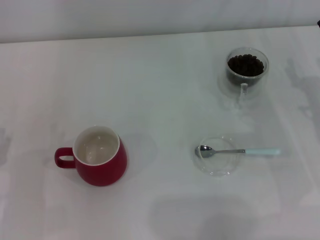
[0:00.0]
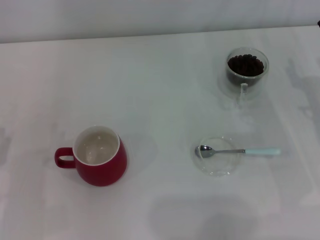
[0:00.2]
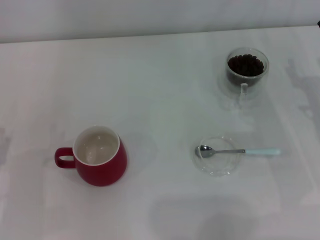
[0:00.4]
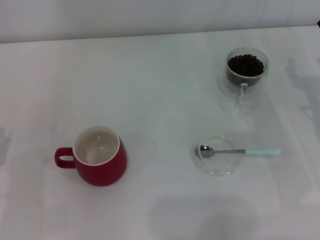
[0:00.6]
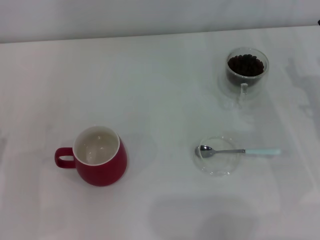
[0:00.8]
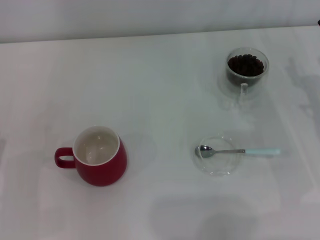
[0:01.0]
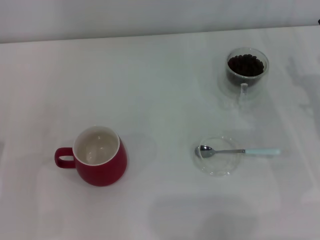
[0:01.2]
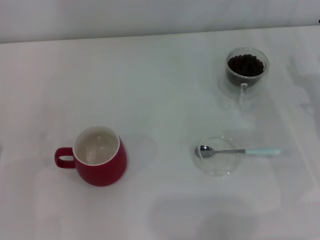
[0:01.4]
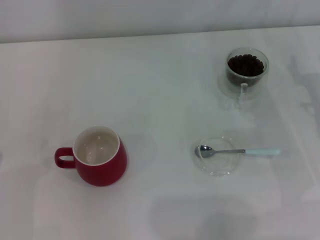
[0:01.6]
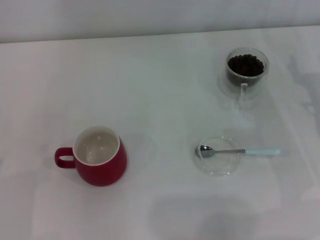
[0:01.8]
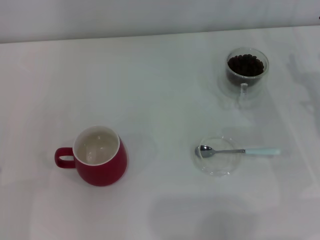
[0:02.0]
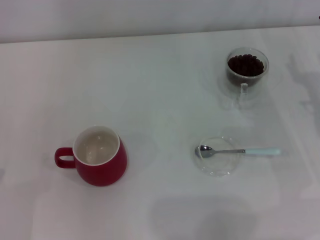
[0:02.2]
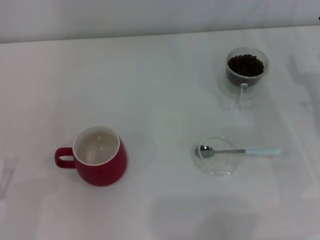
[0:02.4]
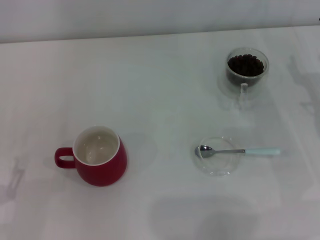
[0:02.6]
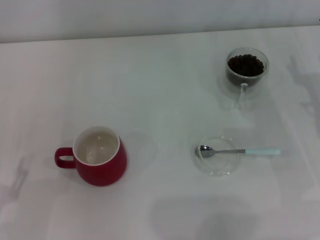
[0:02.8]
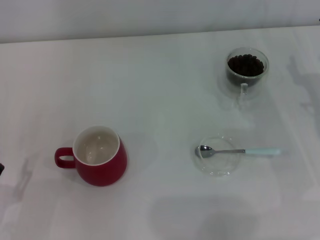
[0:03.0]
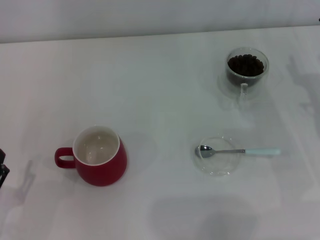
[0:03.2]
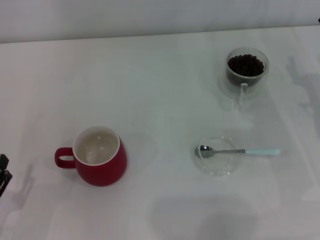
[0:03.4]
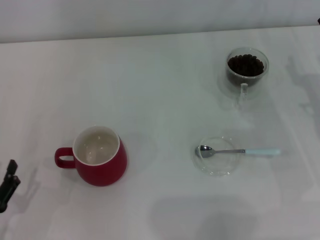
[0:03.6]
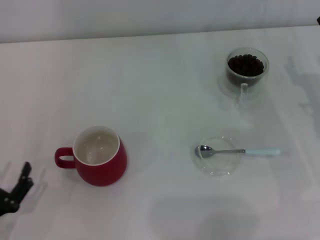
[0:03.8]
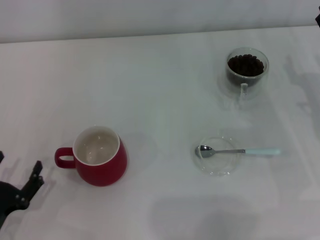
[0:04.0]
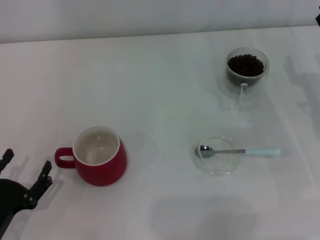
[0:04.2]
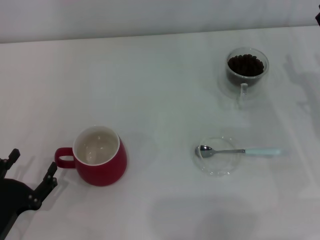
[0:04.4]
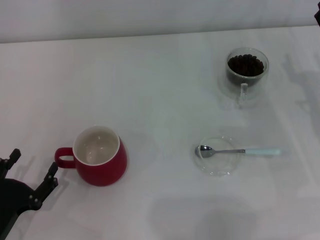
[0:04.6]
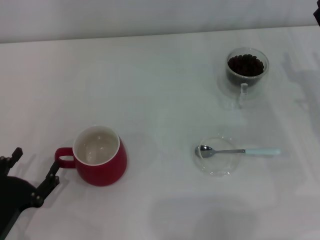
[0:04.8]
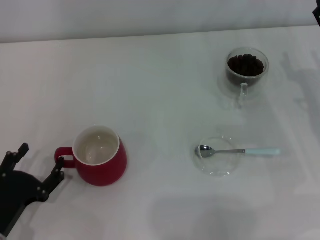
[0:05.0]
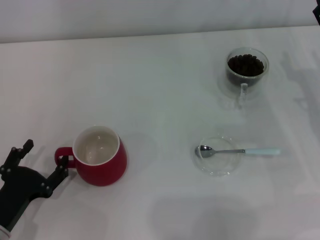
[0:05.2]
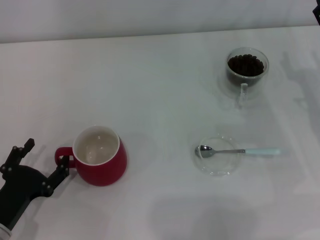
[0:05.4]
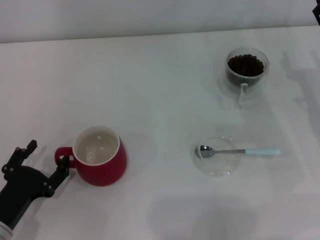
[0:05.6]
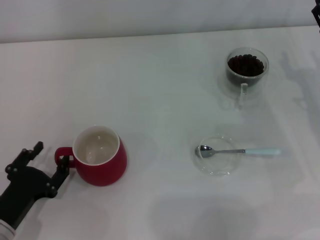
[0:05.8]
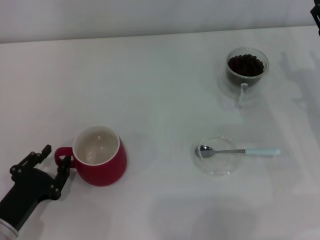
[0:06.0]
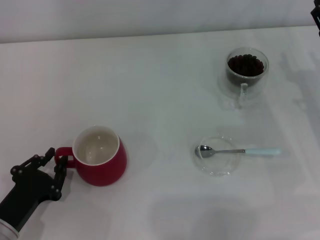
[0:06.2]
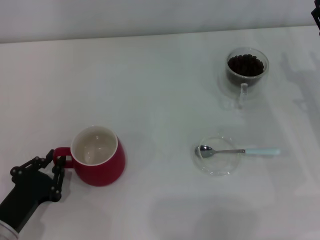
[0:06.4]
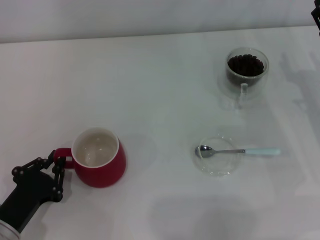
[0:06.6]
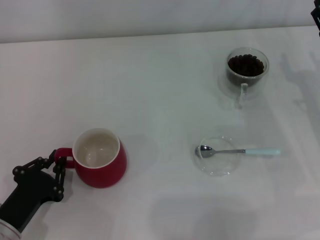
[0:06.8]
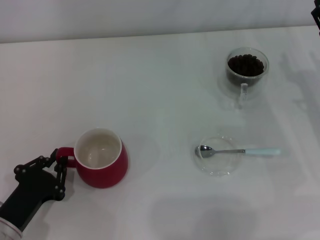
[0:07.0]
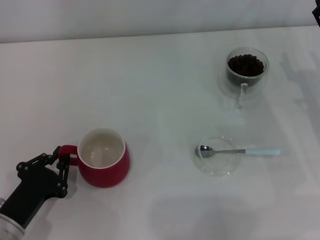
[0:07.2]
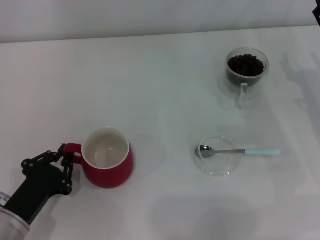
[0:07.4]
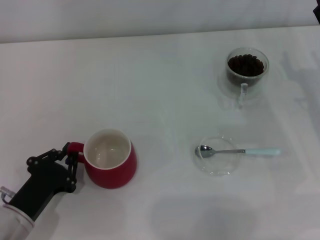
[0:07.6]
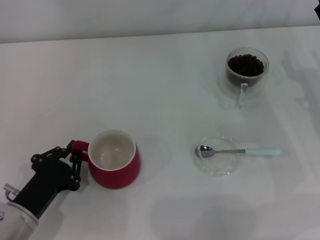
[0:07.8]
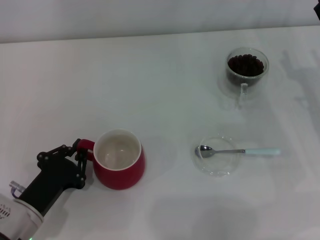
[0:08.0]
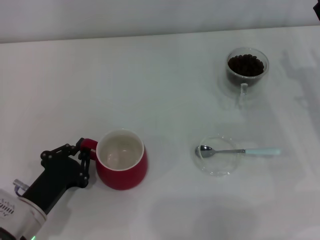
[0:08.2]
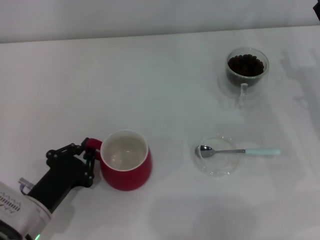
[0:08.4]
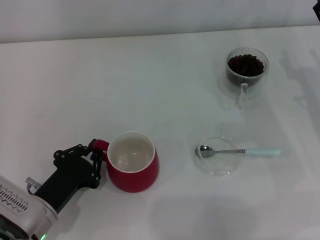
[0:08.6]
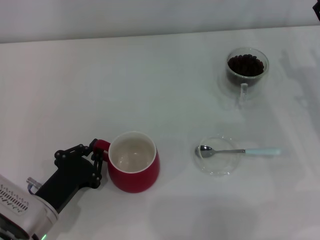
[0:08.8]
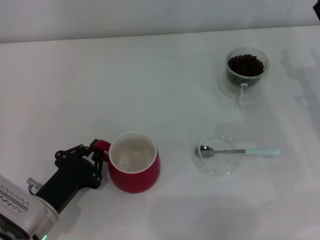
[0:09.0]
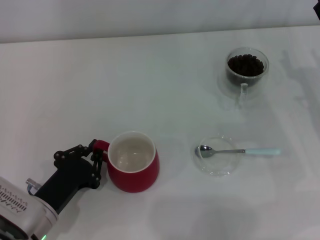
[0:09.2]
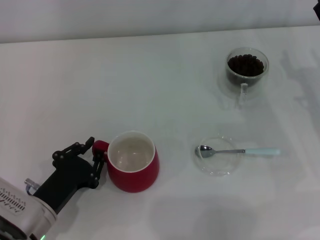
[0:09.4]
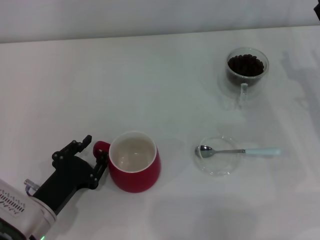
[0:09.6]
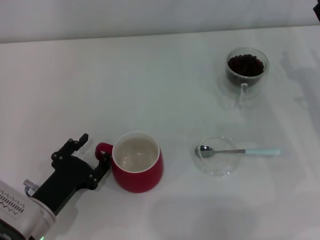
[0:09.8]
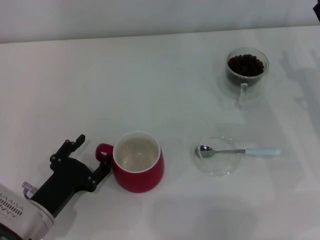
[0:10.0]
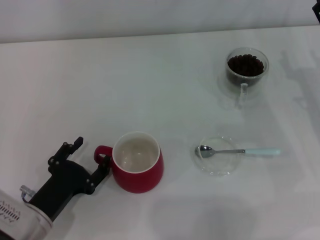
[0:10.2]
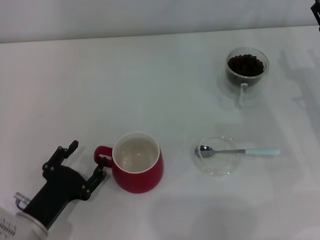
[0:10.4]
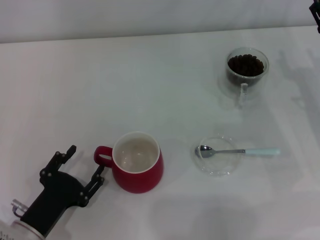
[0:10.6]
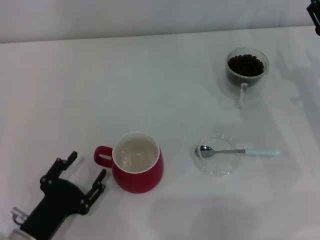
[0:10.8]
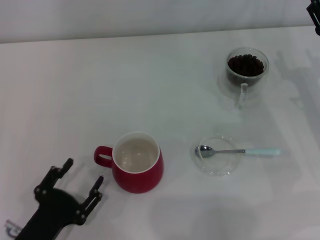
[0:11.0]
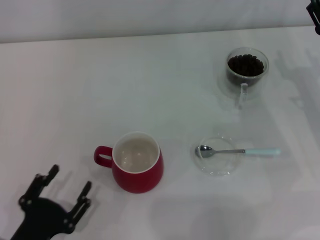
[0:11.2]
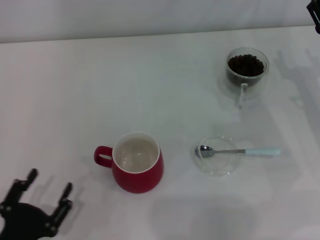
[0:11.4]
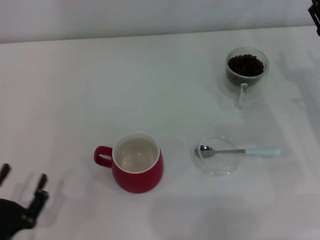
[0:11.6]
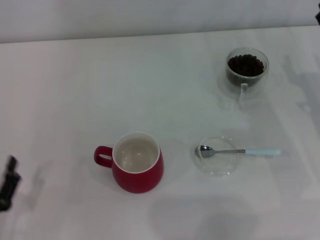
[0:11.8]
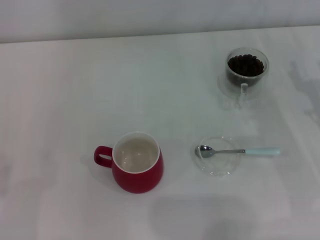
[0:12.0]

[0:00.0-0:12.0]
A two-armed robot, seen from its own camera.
Task of the whole recording: Use a blue spoon to take out the coffee beans from the glass and pour them into the red cup.
Step, 0:00.0 to 0:11.2: Move the cup to the center of view with the left gripper.
0:03.0 to 0:04.4: The grippers stay close to where they were, moving slightly.
0:04.4 to 0:06.0: The grippers stay close to where they were, moving slightly.
0:06.0 to 0:07.6: The left gripper closes up.
0:07.6 to 0:09.0: The grippers stay close to where they were, moving slightly.
0:09.0 to 0:10.4: The left gripper opens.
0:10.4 to 0:12.0: The left gripper moves to the left, some 10 cm.

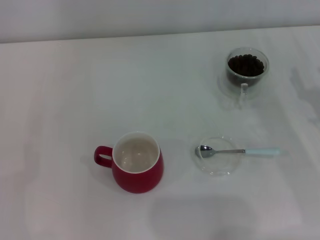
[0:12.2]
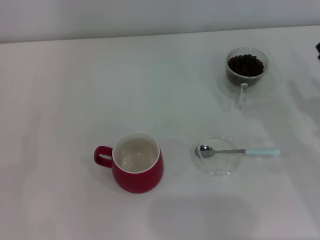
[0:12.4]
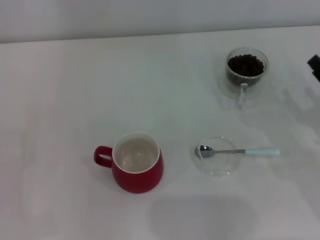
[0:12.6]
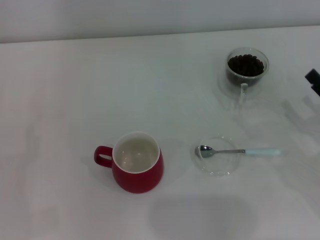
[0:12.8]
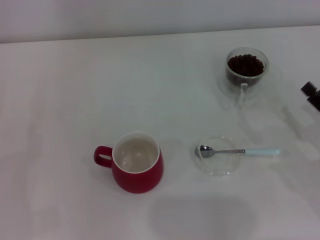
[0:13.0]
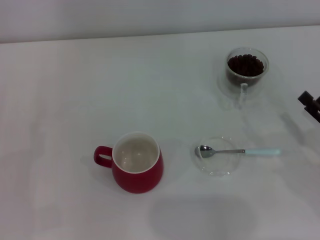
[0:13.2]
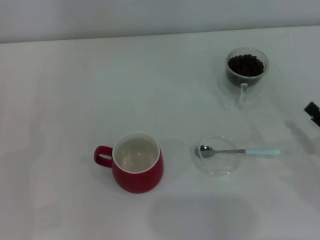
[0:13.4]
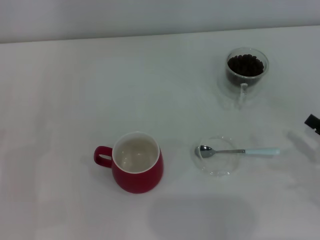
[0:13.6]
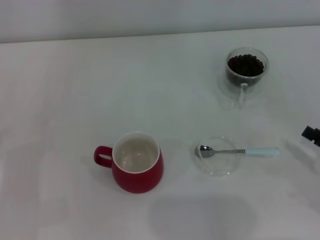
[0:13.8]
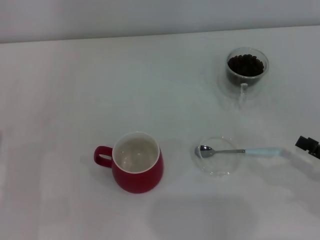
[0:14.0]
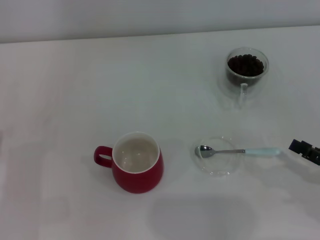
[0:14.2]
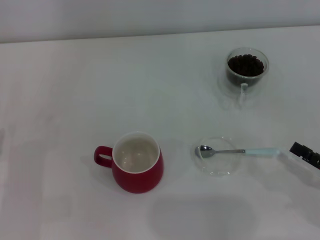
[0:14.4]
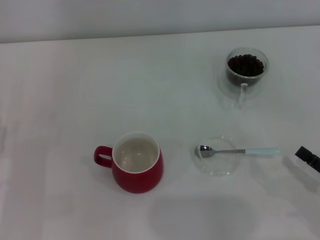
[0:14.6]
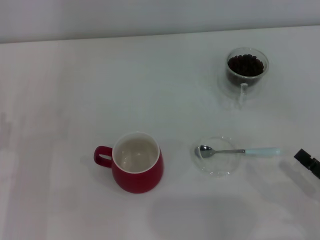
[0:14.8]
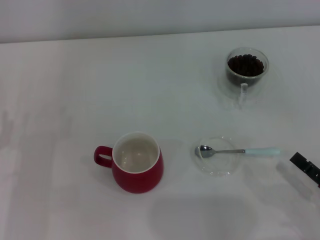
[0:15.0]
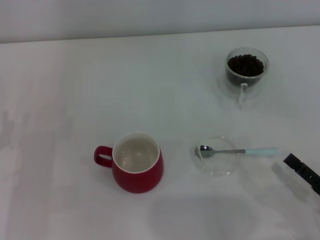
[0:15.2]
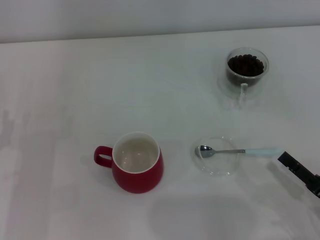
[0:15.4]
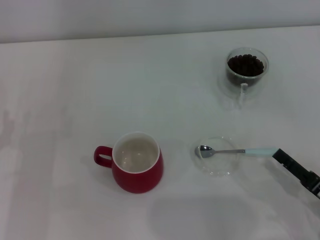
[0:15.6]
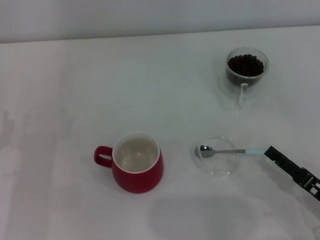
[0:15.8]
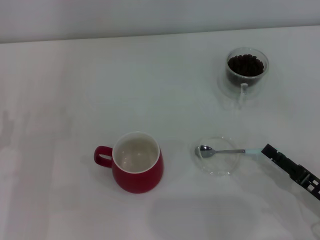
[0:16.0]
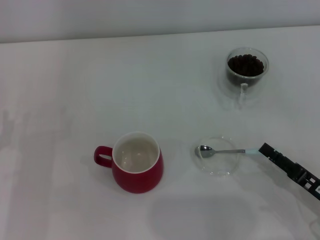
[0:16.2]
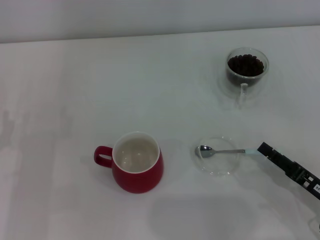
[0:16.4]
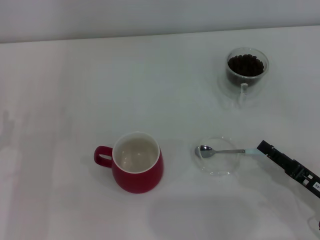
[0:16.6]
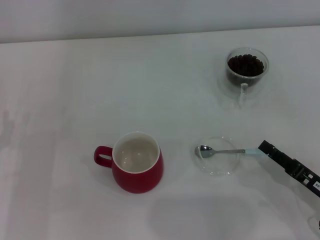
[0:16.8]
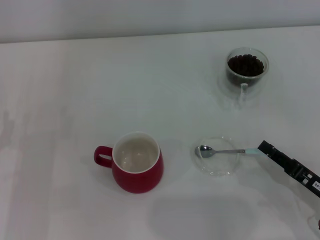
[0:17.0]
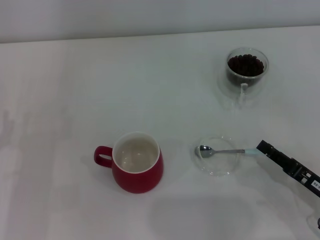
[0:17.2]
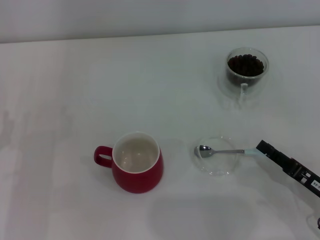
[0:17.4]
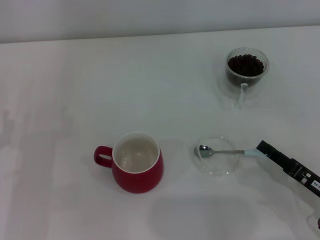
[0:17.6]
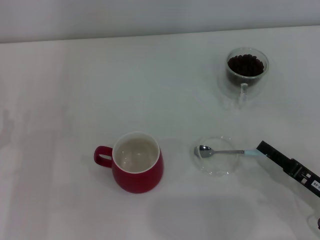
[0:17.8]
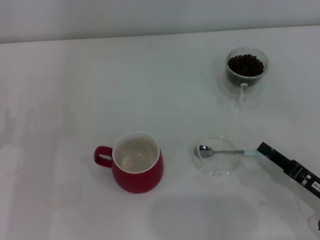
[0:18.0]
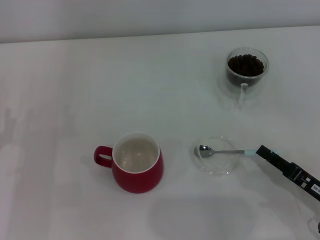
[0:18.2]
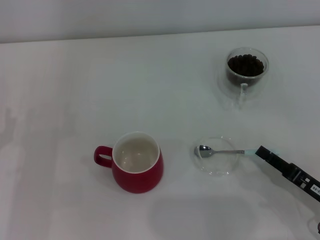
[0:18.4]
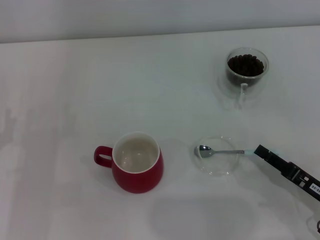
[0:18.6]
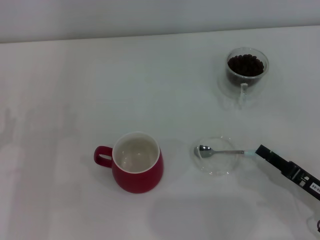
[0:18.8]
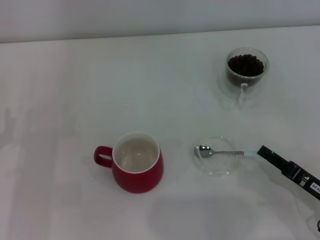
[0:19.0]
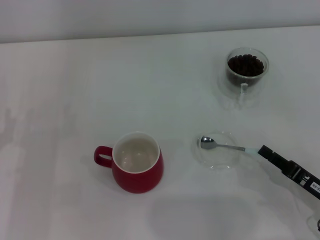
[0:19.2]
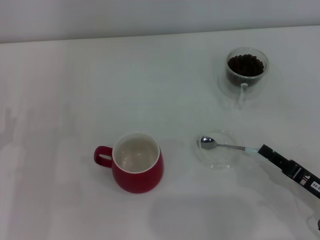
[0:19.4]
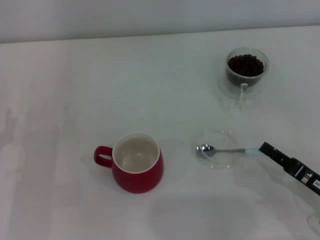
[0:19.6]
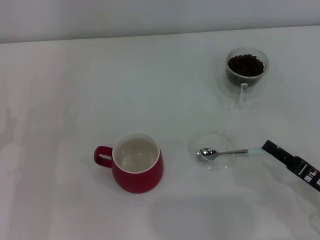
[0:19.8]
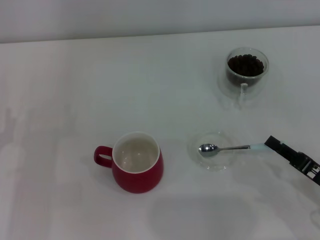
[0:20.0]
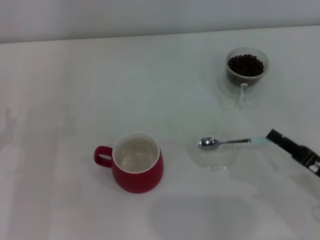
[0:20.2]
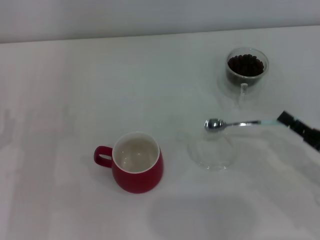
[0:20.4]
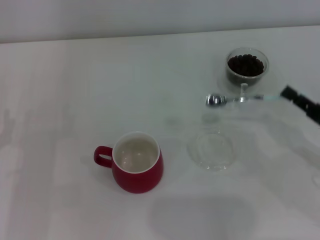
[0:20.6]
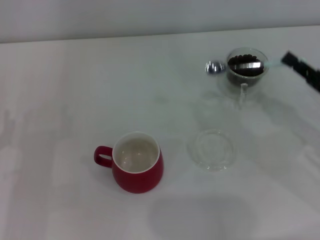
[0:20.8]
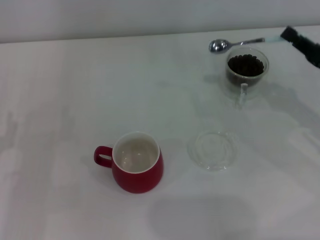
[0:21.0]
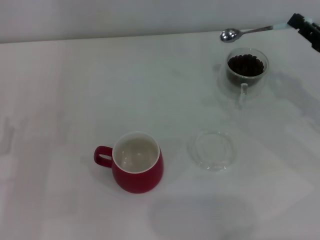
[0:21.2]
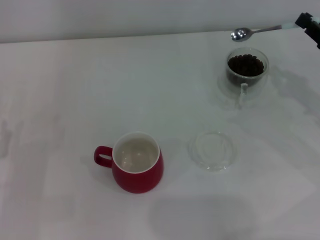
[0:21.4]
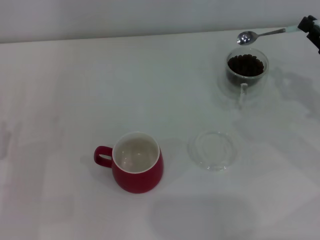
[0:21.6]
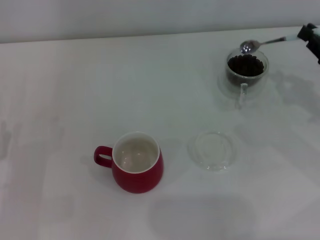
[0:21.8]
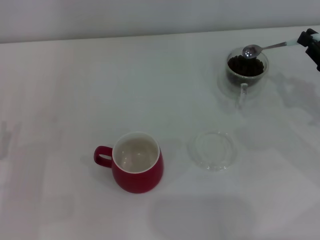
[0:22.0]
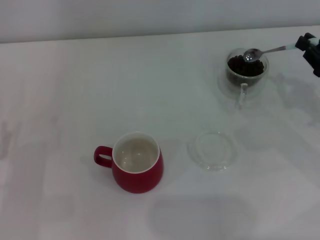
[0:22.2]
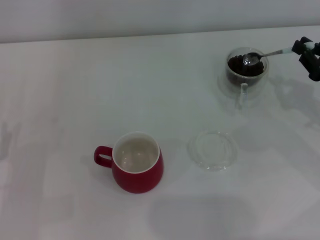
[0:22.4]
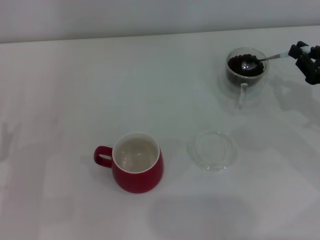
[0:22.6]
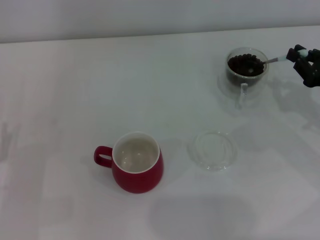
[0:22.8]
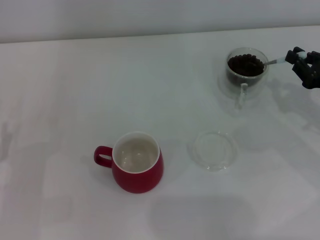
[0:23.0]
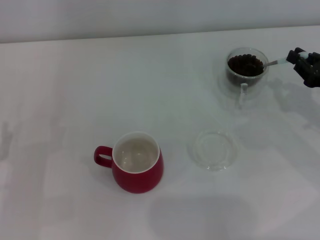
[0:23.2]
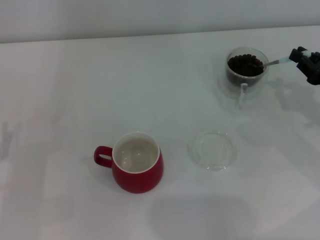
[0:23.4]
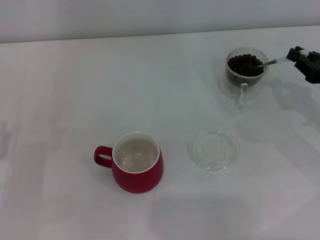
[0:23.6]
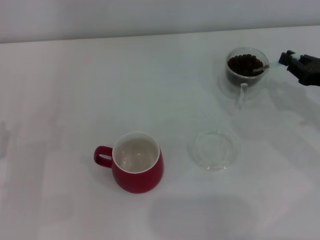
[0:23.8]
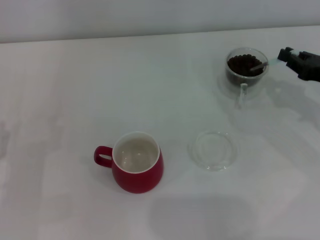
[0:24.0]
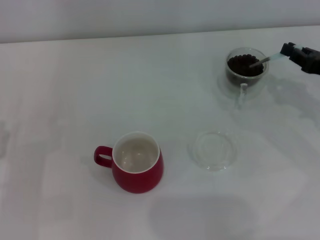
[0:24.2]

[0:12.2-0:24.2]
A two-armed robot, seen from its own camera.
Task of the whole recording: Use a blue spoon to take out the coffee beans from the glass and pour them into the red cup.
Step, 0:12.2 to 0:20.4: Pick up the spoon with the right gripper.
0:12.2 to 0:13.8: The right gripper heads backward, covering about 10 cm.
0:13.8 to 0:15.2: The right gripper is displaced to the left and backward by some 10 cm.
0:15.2 to 0:16.6: The grippers make only small movements.
0:16.6 to 0:18.2: Both grippers stay put.
0:18.2 to 0:19.8: The right gripper closes.
0:19.8 to 0:21.2: The right gripper shifts about 15 cm forward and upward.
0:22.6 to 0:24.2: There are only small adjustments of the grippers.
